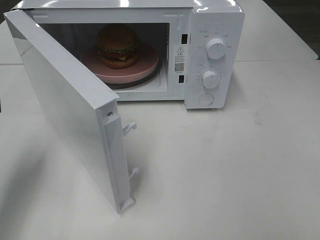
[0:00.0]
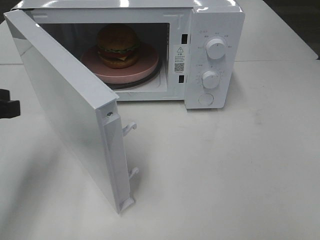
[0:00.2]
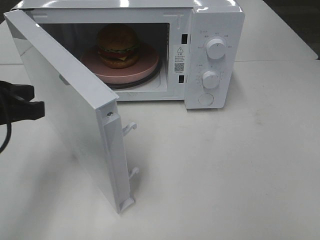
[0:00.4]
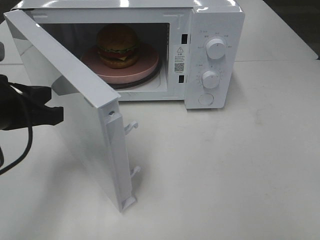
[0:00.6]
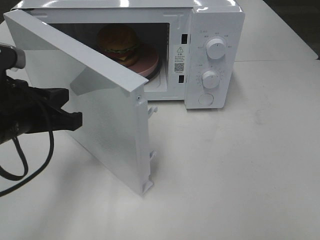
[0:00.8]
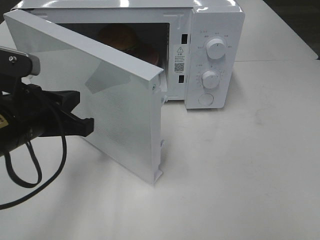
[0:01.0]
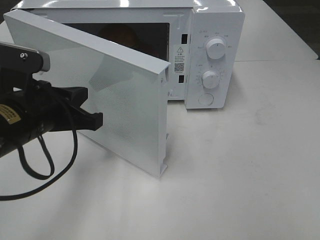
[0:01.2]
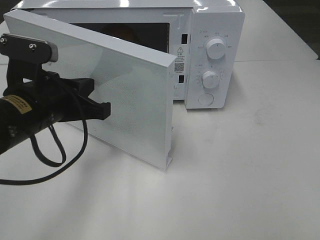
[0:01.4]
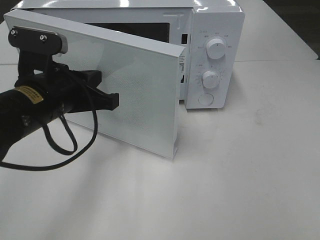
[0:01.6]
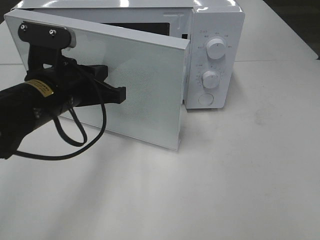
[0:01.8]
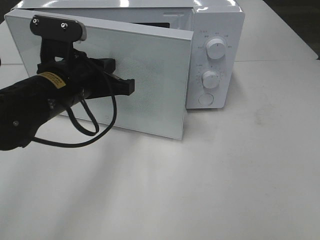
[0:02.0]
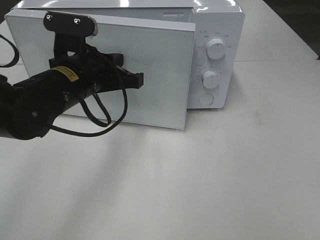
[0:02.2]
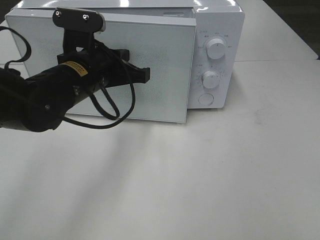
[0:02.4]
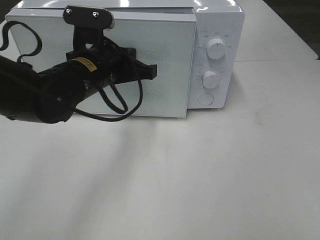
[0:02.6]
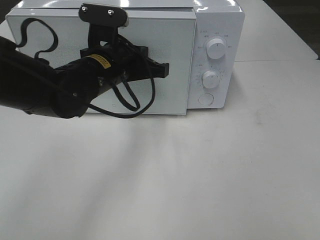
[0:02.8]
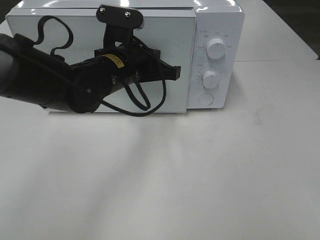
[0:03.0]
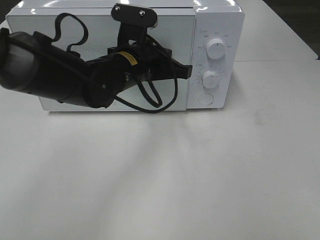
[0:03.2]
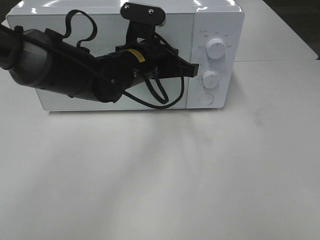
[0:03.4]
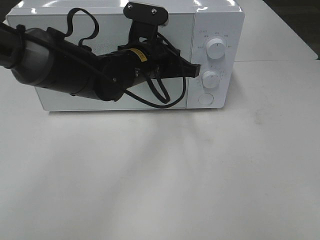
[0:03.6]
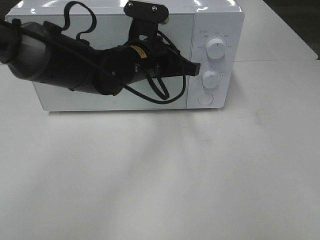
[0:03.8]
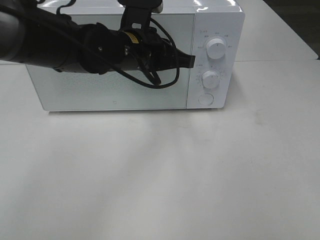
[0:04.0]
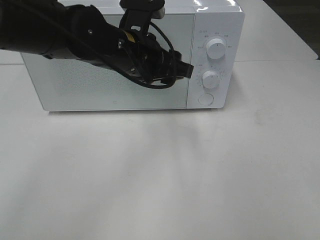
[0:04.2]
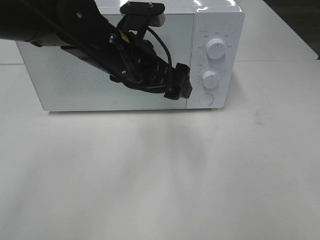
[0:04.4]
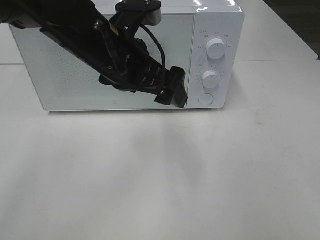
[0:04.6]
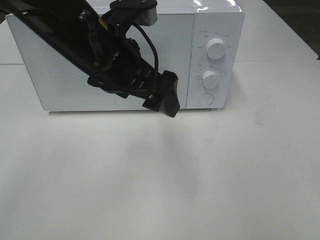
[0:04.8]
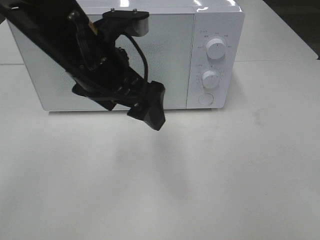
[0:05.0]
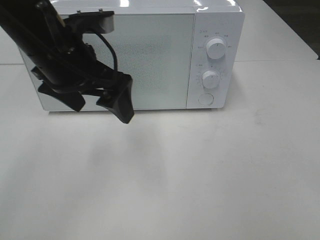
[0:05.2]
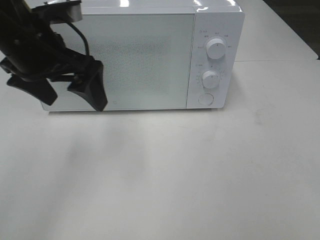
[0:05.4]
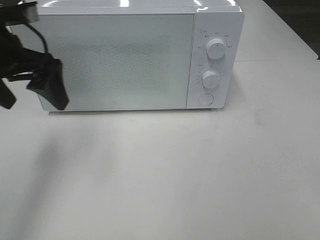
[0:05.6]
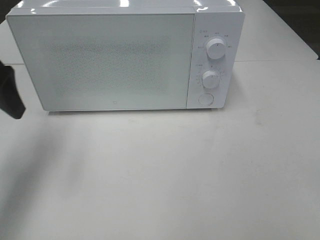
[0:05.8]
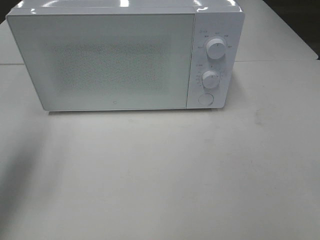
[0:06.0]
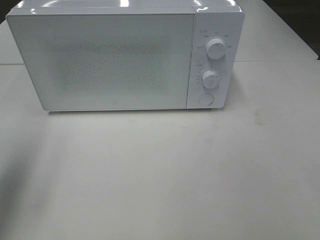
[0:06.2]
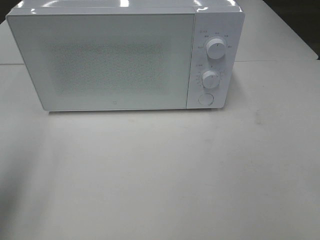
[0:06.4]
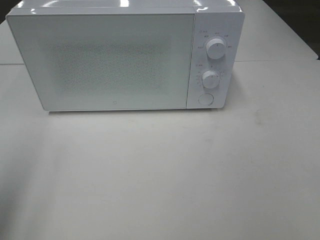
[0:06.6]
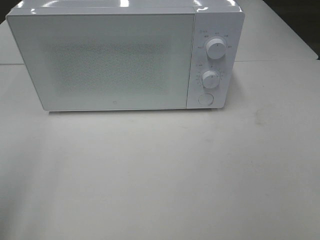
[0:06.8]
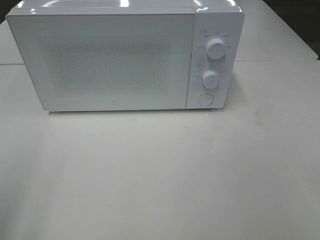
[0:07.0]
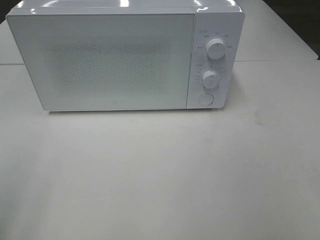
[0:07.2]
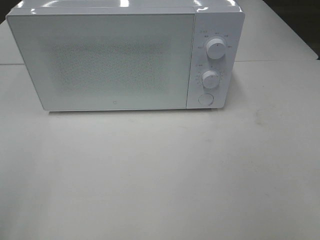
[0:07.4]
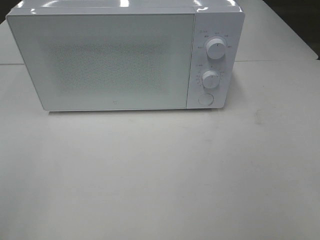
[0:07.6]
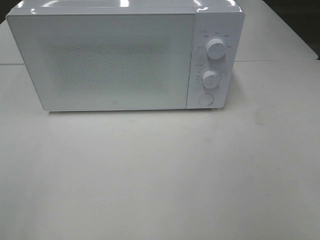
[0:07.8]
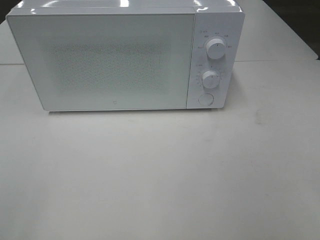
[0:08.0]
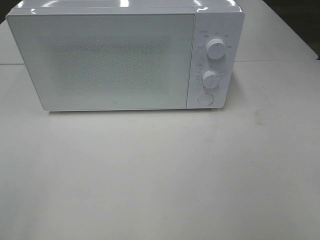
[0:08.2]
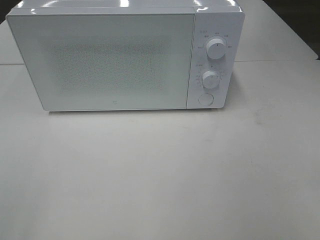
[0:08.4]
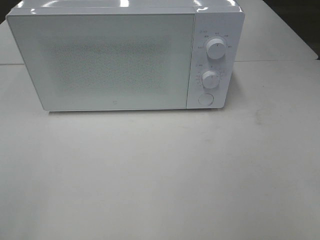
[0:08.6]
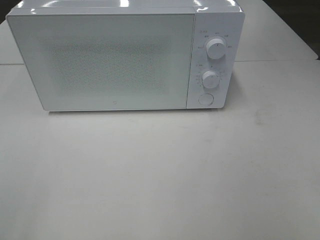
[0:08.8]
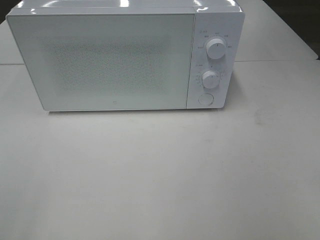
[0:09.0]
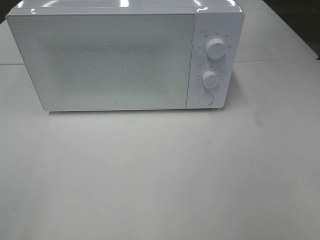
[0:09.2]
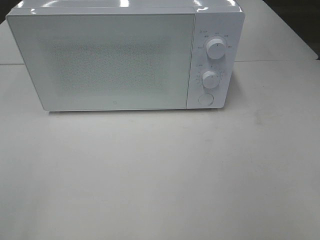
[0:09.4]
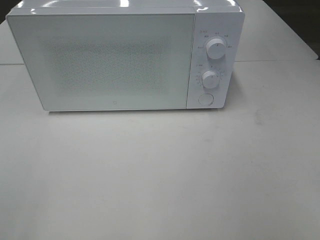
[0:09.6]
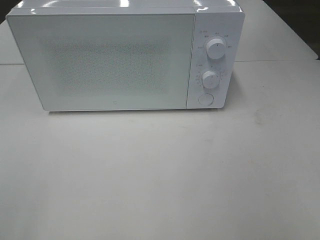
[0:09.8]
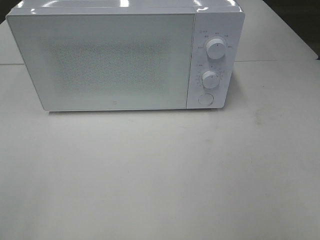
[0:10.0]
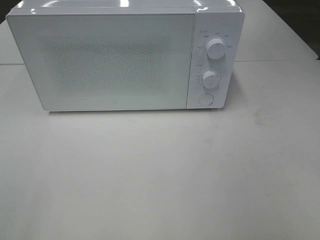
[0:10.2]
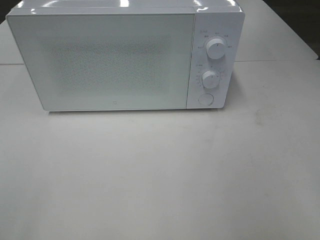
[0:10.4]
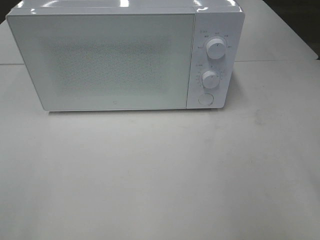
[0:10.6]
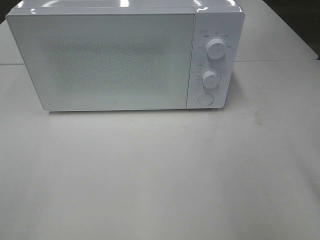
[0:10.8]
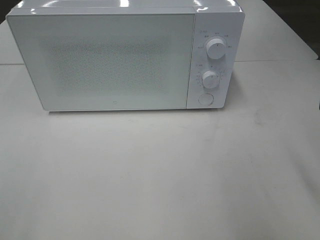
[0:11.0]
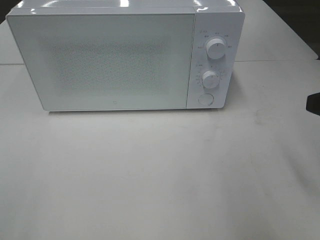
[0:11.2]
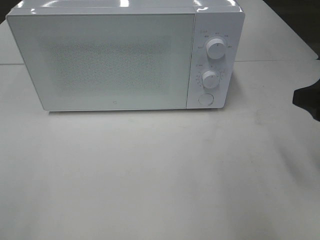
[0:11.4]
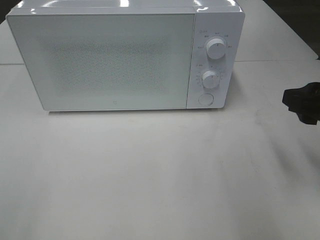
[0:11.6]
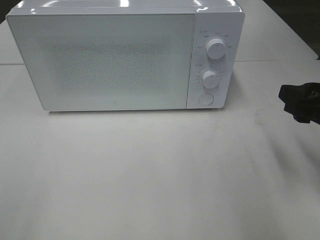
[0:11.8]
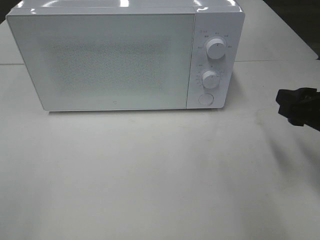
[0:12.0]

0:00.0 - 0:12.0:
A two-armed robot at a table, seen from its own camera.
Task of the whole recording: Heat the burger.
Step, 0:00.0 - 0:03.8: Left hand: close the microwave door.
0:00.0 - 0:01.6: The left gripper heads to the right, covering some 15 cm.
0:01.6 - 0:03.0: The left gripper is displaced to the right and forward by some 15 cm.
0:03.0 - 0:04.4: The left gripper ends up roughly 5 cm from where it was, and opens.
0:04.4 - 0:06.0: The left gripper goes roughly 25 cm to the left.
0:06.0 - 0:07.6: The left gripper moves backward, approximately 20 cm.
0:10.4 - 0:12.0: The right gripper moves forward and downward, approximately 15 cm.

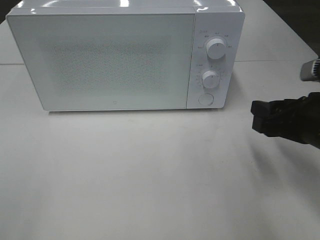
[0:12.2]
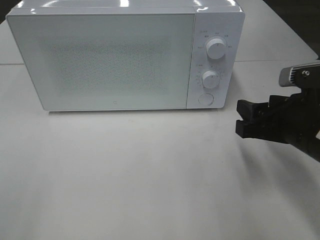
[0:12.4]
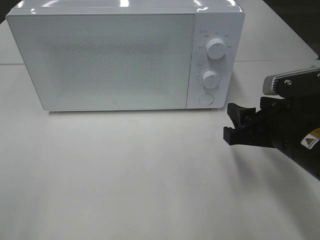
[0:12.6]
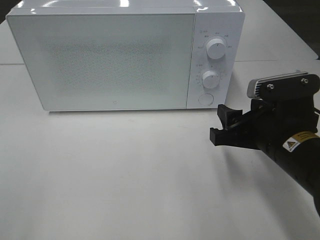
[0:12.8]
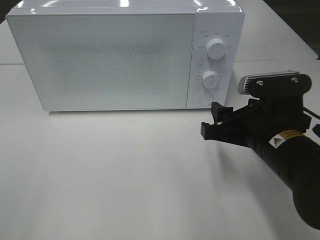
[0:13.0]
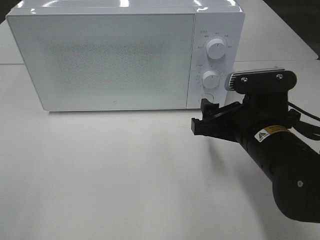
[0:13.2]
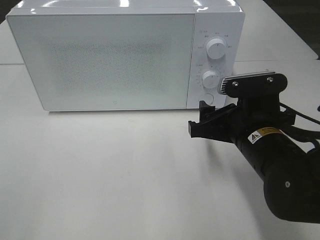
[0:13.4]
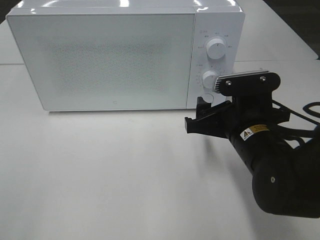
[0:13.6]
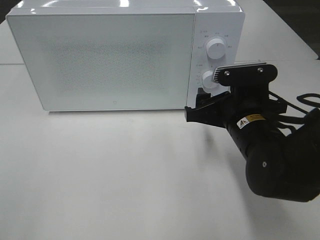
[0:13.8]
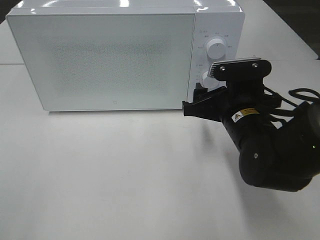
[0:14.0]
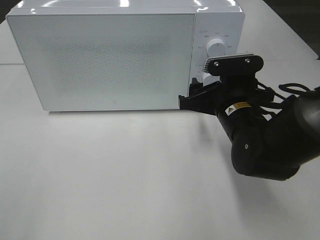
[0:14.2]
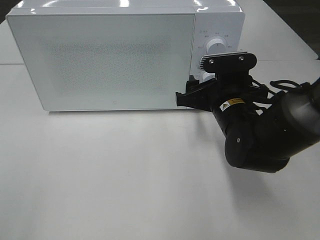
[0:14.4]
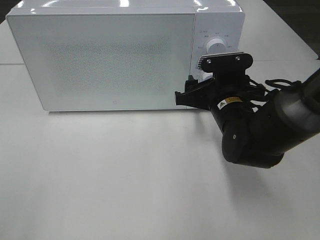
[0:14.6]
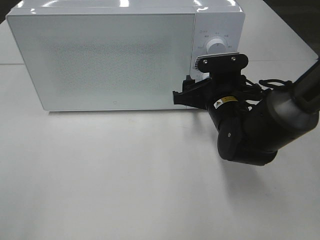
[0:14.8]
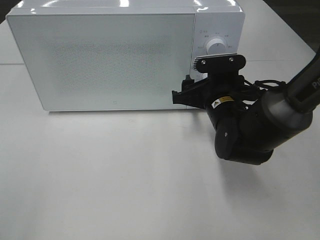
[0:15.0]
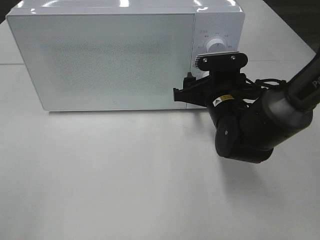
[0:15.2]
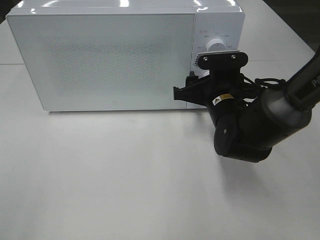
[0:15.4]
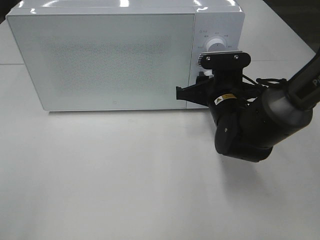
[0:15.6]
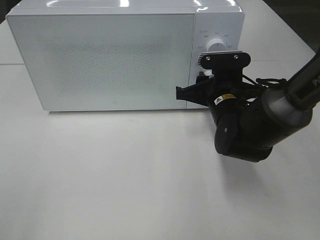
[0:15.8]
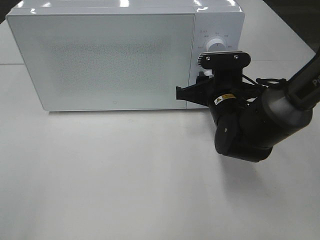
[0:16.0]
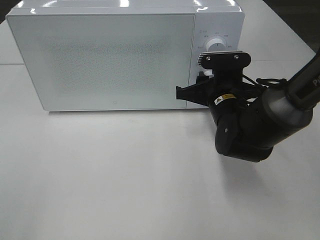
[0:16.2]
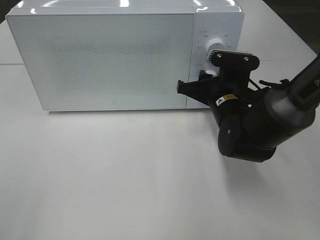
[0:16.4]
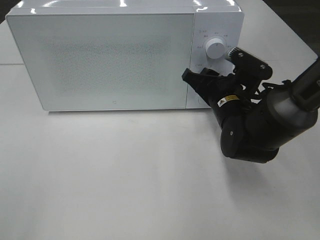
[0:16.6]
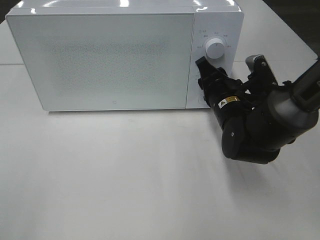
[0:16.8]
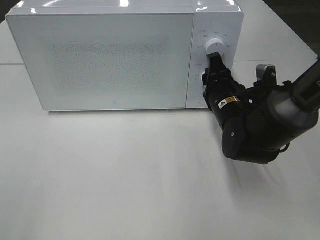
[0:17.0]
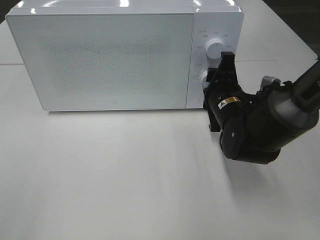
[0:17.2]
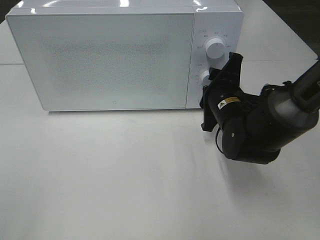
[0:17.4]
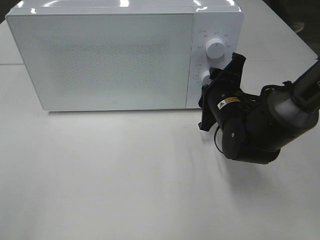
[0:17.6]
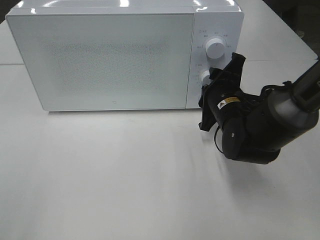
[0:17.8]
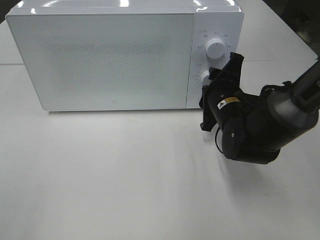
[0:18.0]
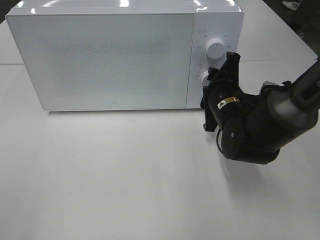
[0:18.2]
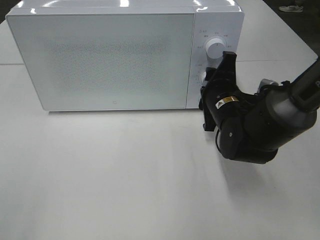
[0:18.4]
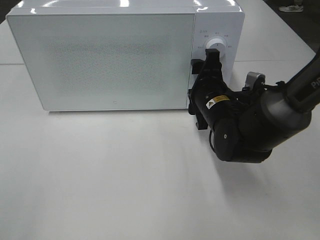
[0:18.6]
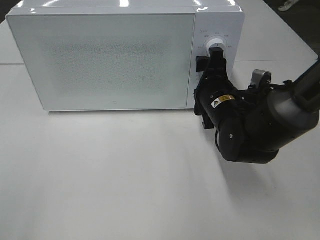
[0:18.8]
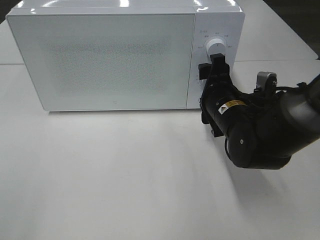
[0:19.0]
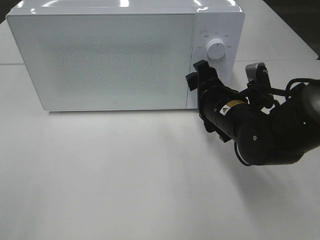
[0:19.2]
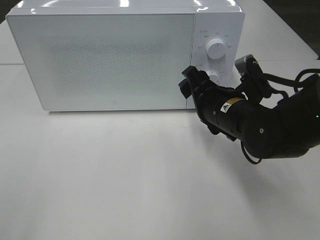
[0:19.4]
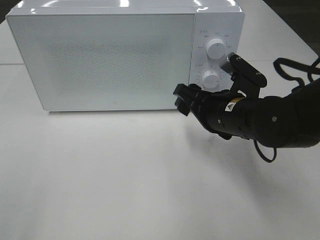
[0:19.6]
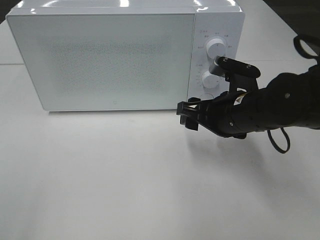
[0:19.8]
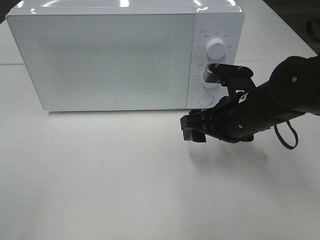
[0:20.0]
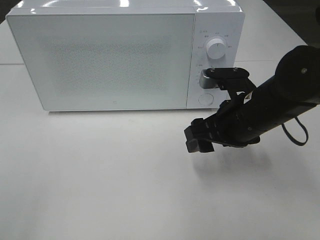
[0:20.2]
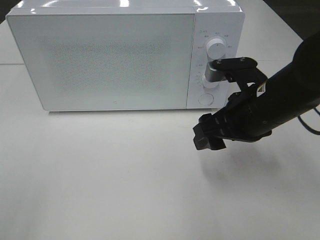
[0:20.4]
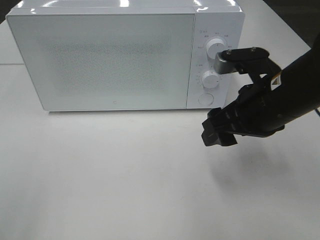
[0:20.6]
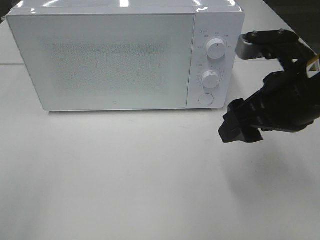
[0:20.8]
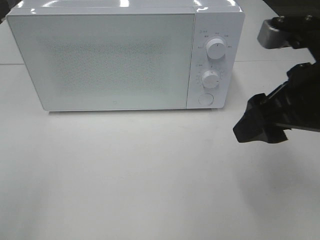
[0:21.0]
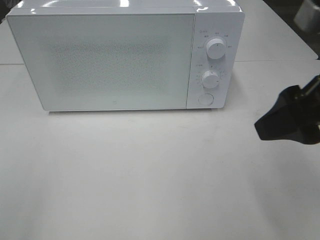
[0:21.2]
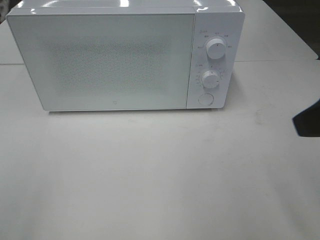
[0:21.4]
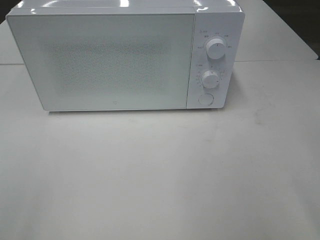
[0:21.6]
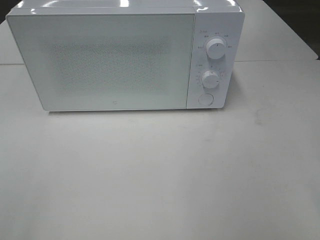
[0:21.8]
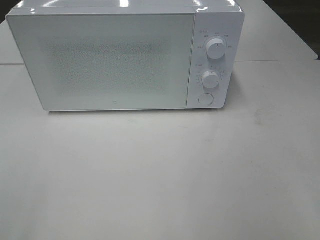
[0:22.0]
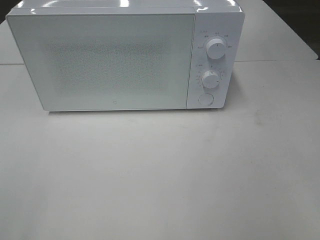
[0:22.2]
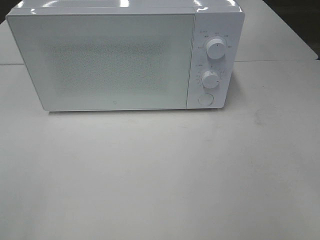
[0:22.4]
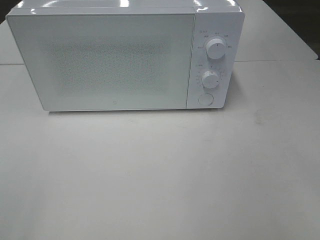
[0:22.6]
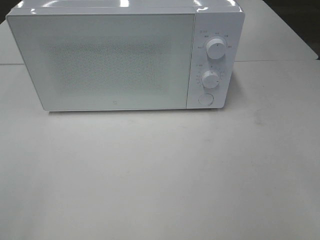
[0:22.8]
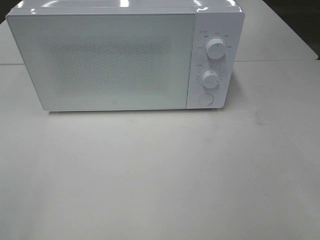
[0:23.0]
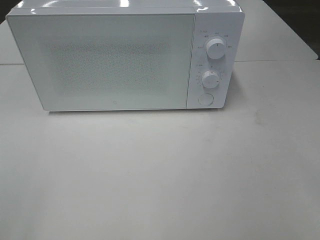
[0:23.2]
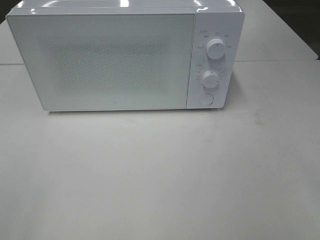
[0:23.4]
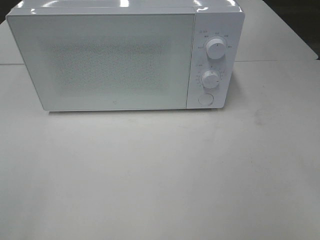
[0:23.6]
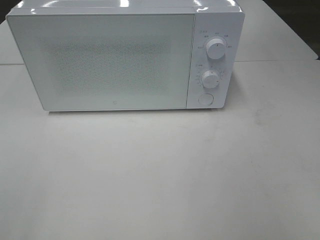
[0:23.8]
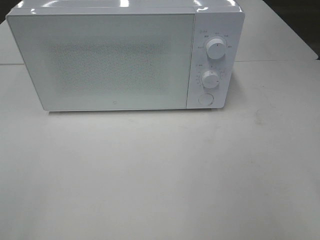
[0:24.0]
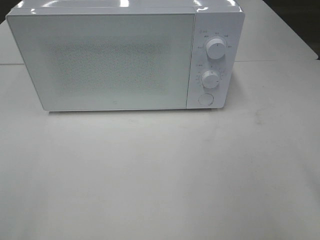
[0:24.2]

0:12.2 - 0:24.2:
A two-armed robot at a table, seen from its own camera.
Task of the whole recording: Heat the burger.
Step, 0:12.2 - 0:18.4: Right hand: twist timer button.
0:12.2 - 0:13.8: The right gripper heads to the left, covering some 10 cm.
0:13.8 - 0:15.2: The right gripper moves forward, approximately 5 cm.
0:15.2 - 0:16.6: The right gripper closes up.
0:18.2 - 0:19.8: The right gripper ends up some 5 cm from where it was, and opens.
0:19.8 - 0:21.2: The right gripper goes about 20 cm upward, backward and to the right.
0:21.2 - 0:22.6: The right gripper heads backward and to the right, covering roughly 20 cm.
